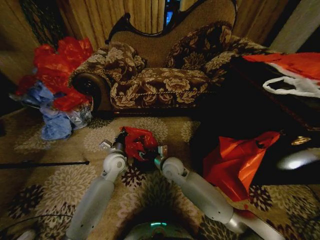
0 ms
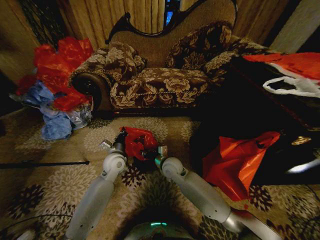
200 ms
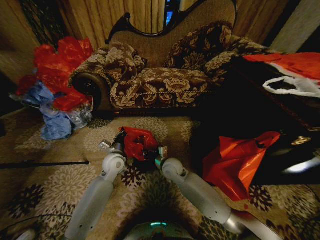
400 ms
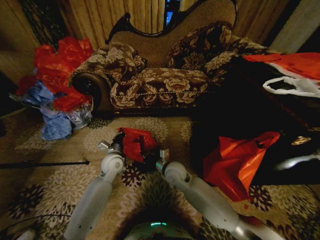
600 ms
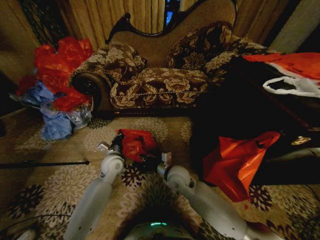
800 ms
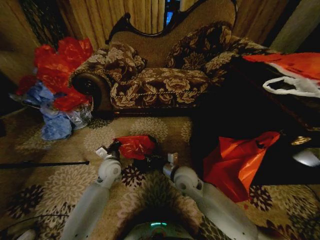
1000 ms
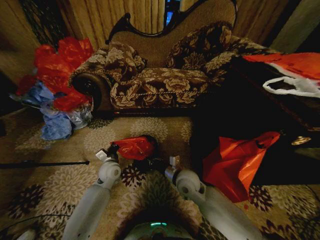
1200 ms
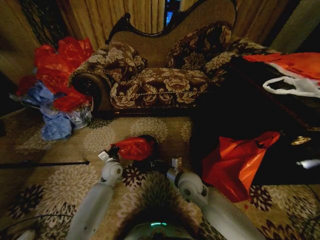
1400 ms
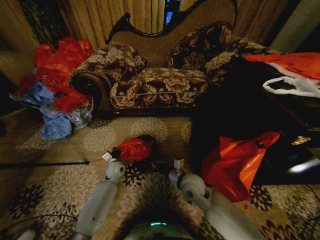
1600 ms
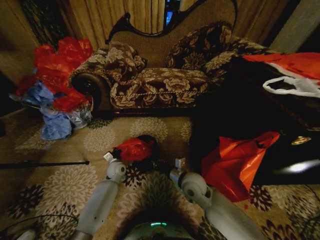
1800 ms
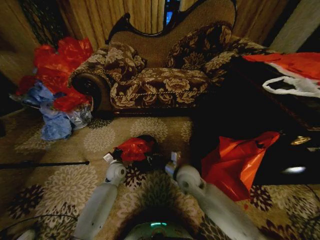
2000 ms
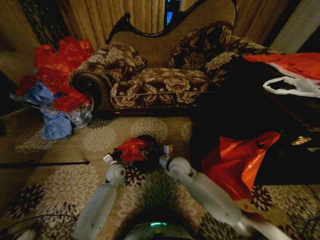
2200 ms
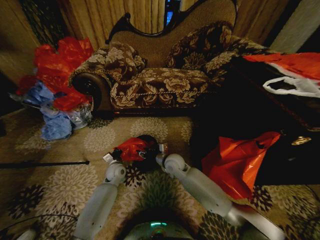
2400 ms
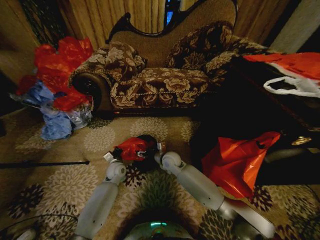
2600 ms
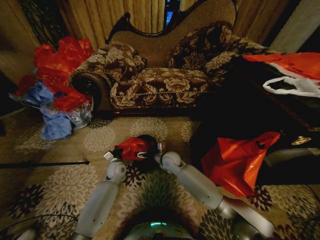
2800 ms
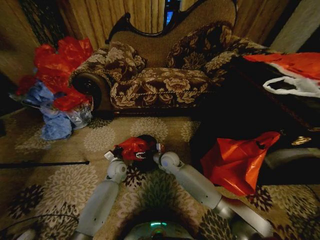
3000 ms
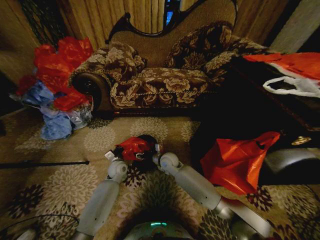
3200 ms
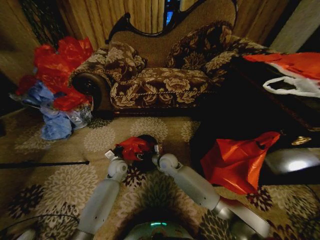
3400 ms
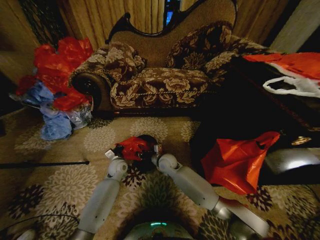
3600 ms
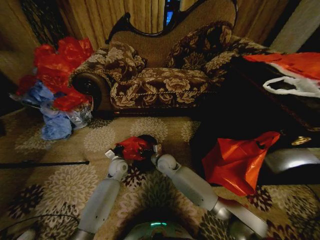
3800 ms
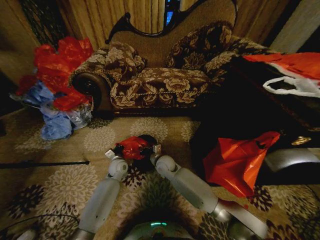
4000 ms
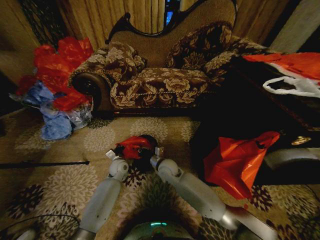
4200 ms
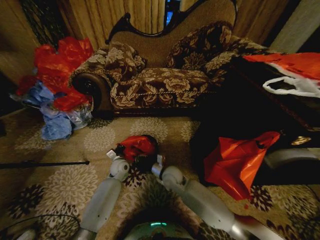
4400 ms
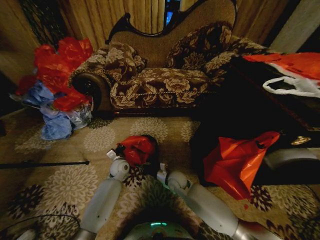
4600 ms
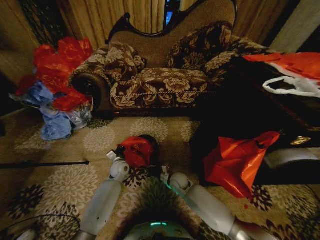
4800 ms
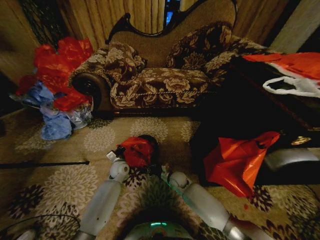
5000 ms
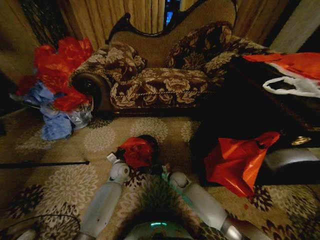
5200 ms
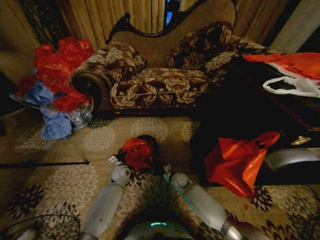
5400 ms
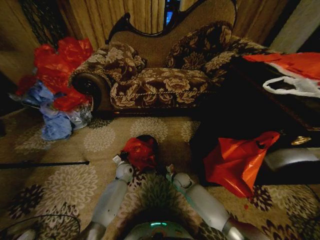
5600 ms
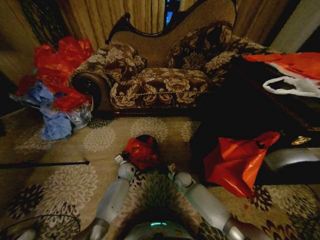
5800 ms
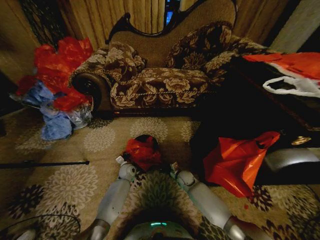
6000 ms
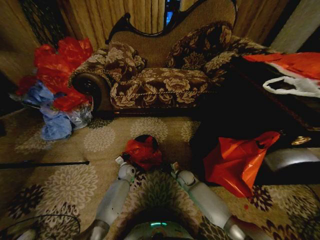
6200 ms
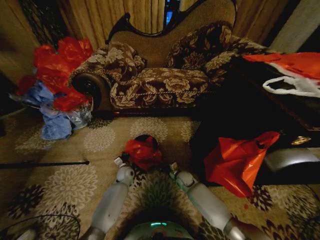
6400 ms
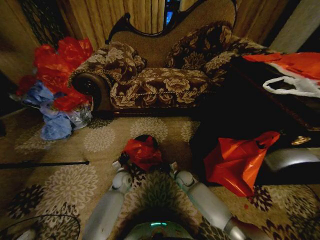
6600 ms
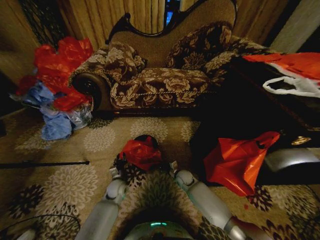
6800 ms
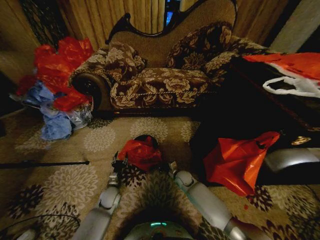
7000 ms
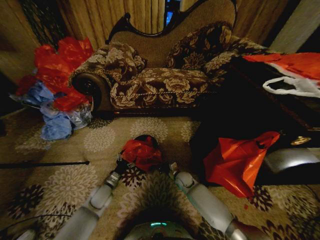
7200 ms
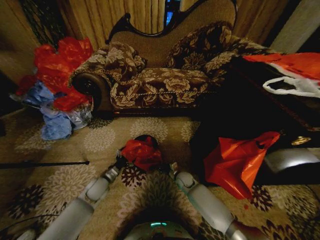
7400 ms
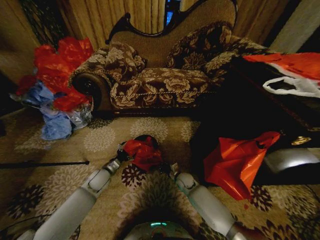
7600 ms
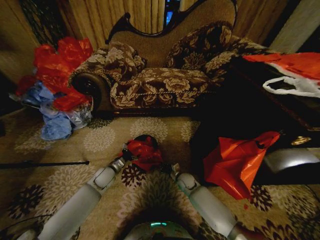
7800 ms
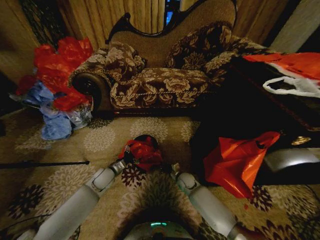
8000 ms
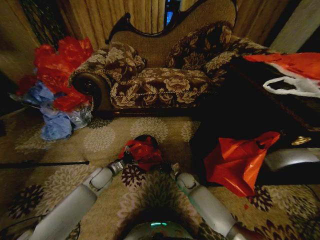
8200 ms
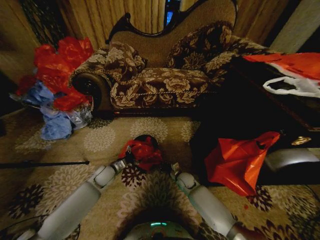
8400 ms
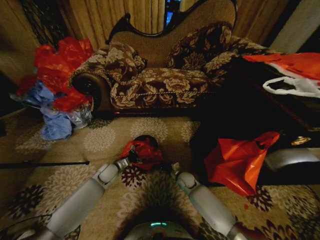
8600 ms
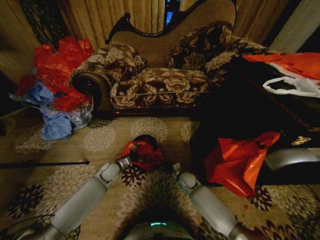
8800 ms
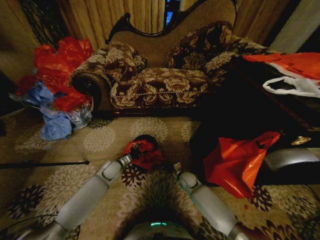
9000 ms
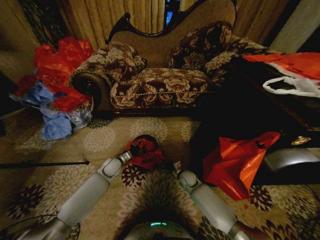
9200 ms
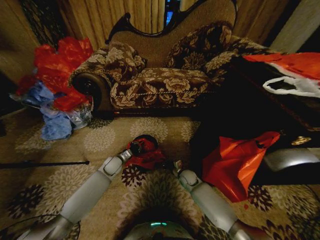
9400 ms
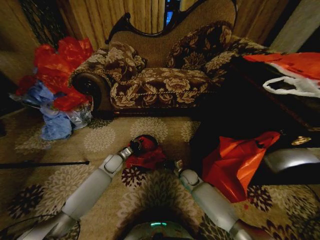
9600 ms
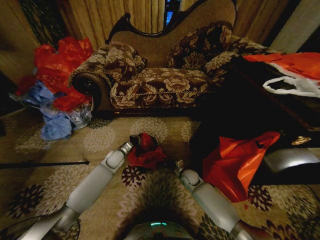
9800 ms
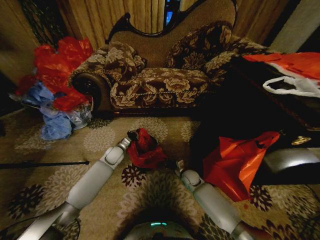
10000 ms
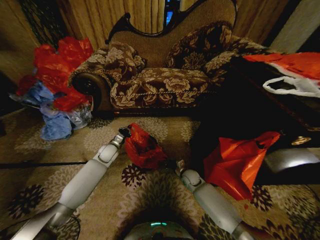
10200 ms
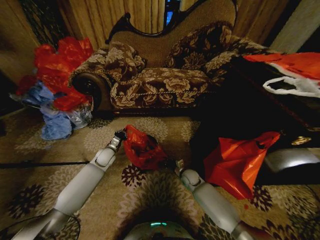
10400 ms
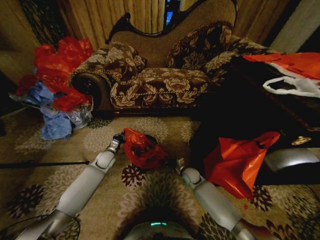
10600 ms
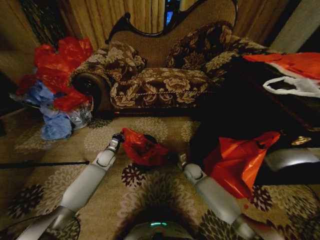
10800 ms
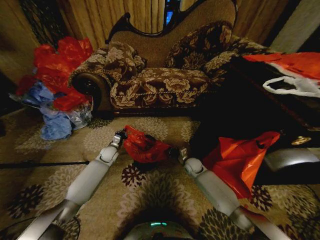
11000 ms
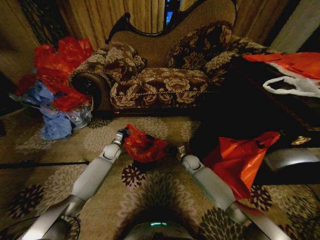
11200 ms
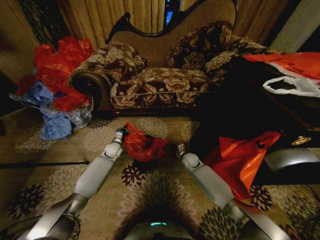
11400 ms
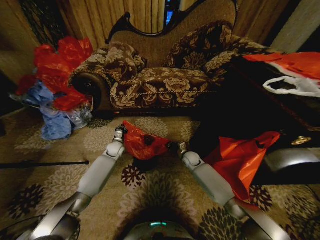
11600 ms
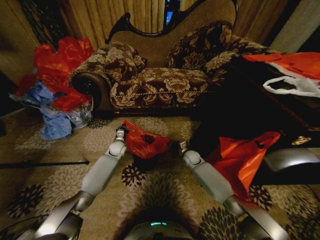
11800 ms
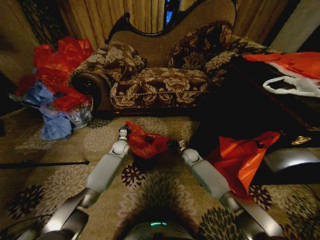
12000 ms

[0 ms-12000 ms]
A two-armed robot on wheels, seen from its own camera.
Task of the whole recording: Place a garbage bag over the trash bin.
0 ms to 1600 ms: The right gripper is displaced backward and to the right by roughly 10 cm, and closes. The left gripper is displaced downward by some 10 cm.
1600 ms to 3000 ms: The right gripper shifts some 15 cm forward and to the left, and opens up.
3000 ms to 4400 ms: The right gripper shifts about 10 cm backward, and closes up.
4400 ms to 6000 ms: The left gripper is displaced downward by approximately 10 cm. The right gripper moves downward and to the right, roughly 20 cm.
6000 ms to 7600 ms: The left gripper goes roughly 15 cm upward, to the left and backward, and opens its fingers.
7600 ms to 9000 ms: The left gripper goes roughly 5 cm forward, and closes.
9000 ms to 10400 ms: The left gripper shifts by about 5 cm, and closes its fingers.
10400 ms to 12000 ms: The right gripper goes approximately 10 cm forward and upward. The left gripper heads forward and to the right, covering roughly 10 cm.

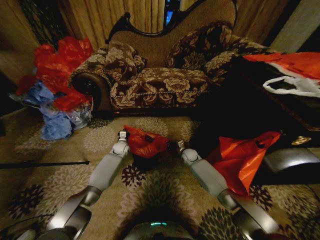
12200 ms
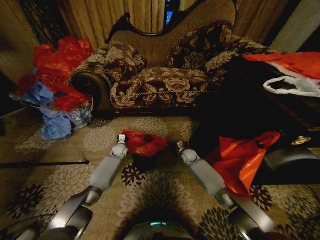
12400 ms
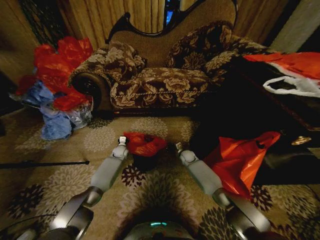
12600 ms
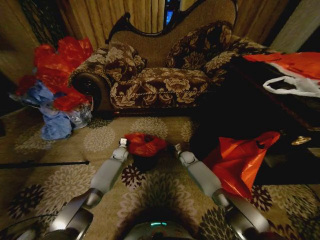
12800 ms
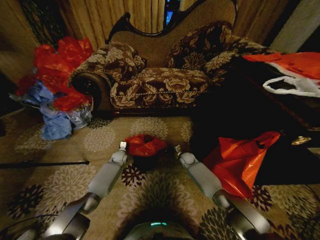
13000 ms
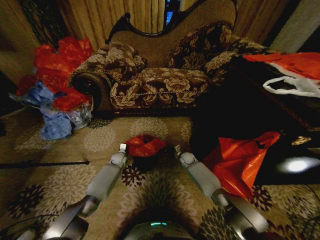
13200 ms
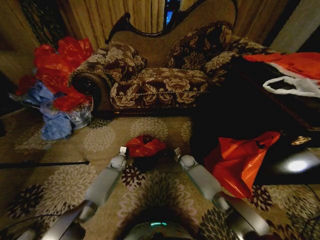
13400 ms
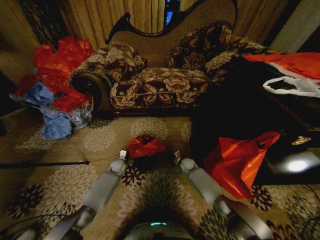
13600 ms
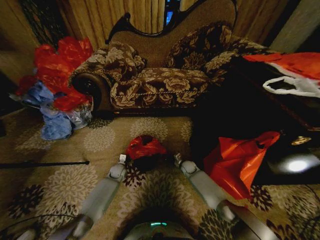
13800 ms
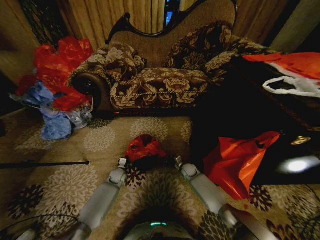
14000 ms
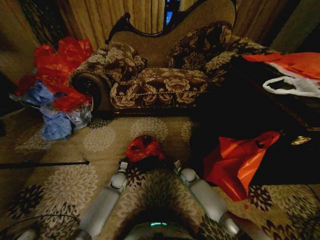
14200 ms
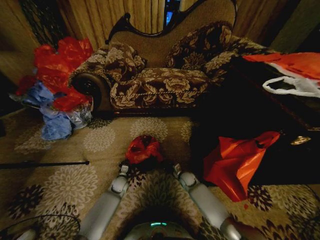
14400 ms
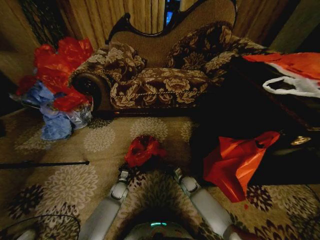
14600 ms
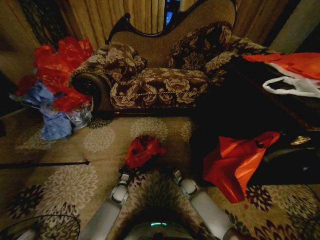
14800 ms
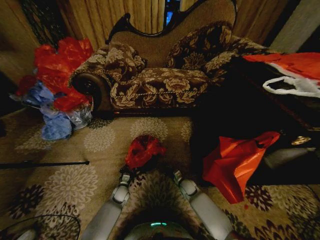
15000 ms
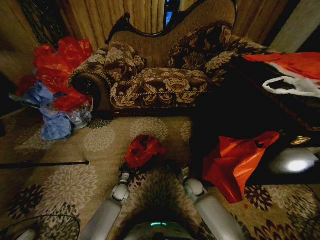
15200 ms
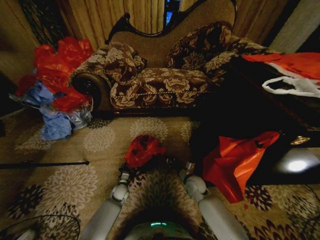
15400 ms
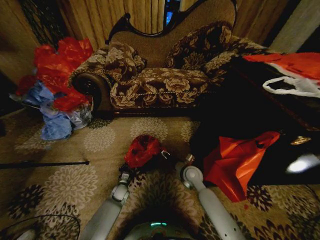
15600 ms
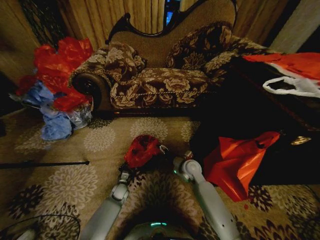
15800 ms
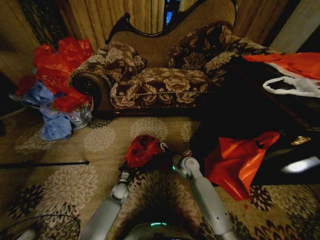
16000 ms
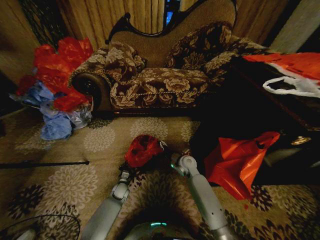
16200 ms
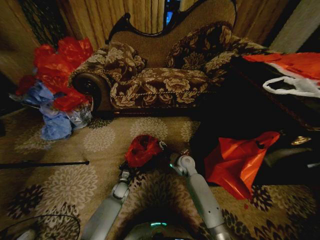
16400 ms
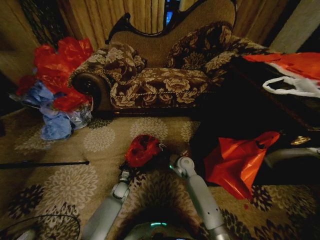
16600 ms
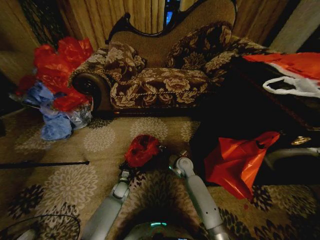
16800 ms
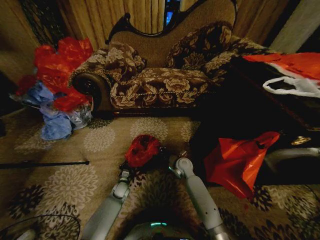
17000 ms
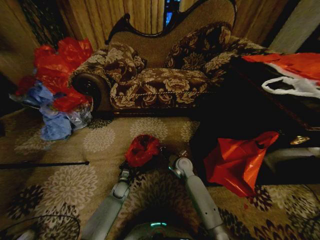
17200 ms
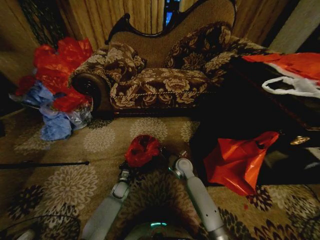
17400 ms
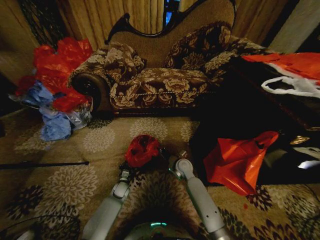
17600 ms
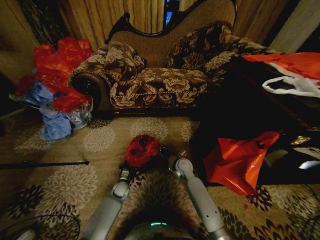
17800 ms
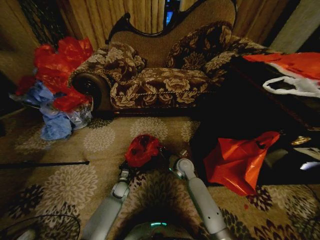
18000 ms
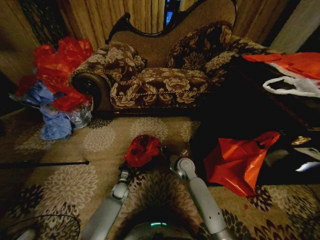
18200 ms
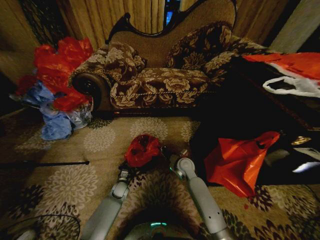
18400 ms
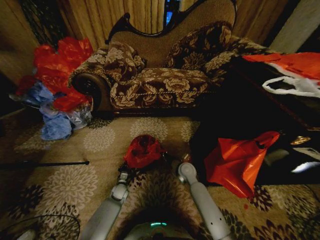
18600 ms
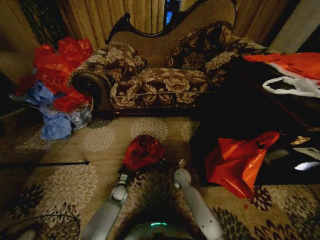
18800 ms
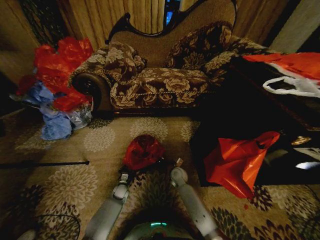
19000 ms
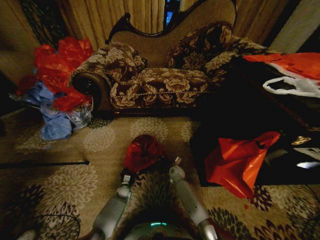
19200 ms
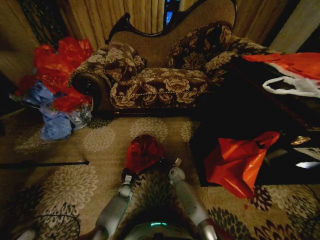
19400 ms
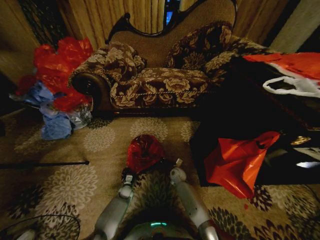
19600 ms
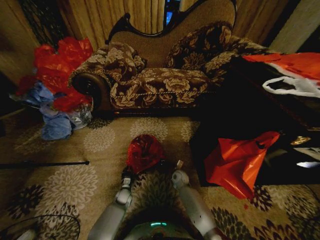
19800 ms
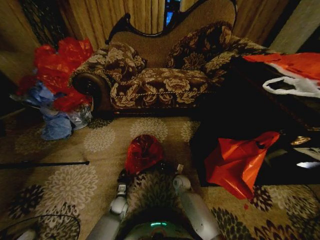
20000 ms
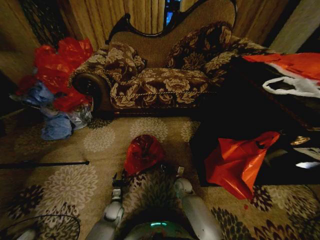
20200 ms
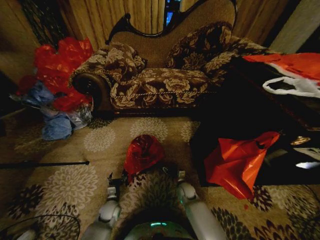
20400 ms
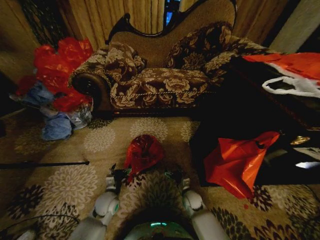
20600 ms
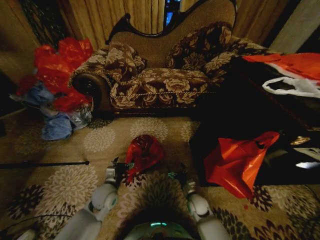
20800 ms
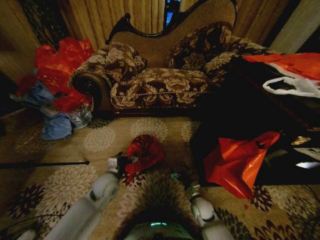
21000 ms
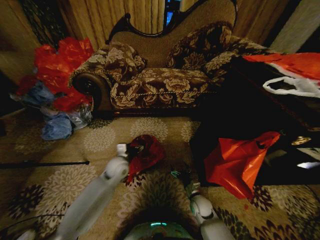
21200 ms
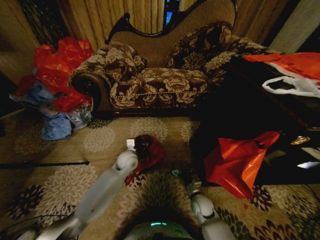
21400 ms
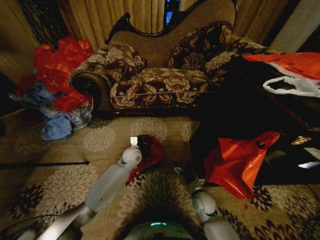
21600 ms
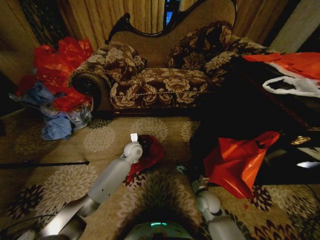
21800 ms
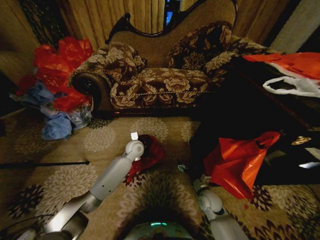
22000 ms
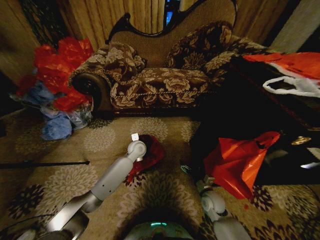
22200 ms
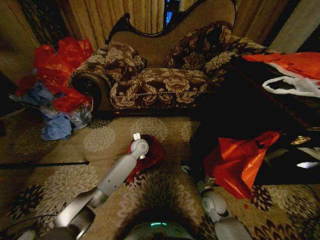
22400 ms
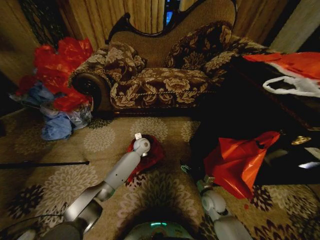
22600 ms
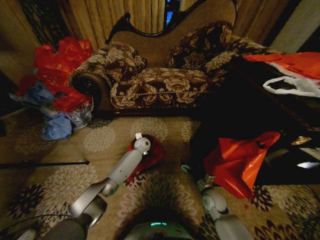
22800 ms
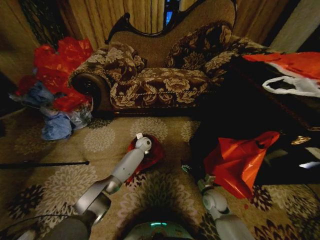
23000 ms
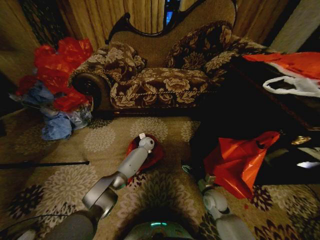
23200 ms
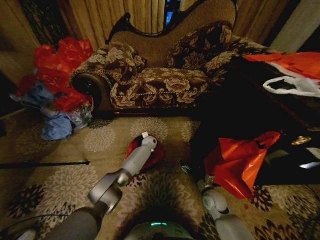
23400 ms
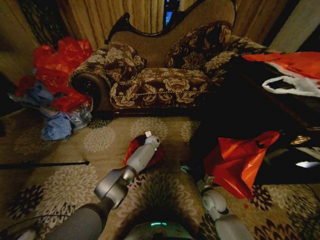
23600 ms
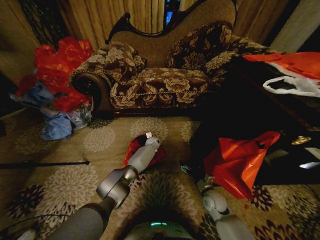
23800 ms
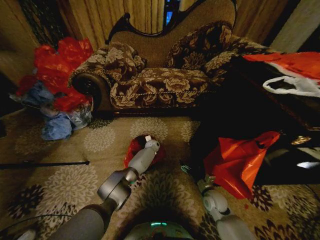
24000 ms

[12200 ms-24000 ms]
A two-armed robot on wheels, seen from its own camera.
Task of the whole recording: Place a garbage bag over the trash bin.
12200 ms to 13600 ms: The left gripper moves downward and backward, about 10 cm, while the right gripper goes about 5 cm downward.
13600 ms to 15200 ms: The left gripper moves backward and downward, about 15 cm. Meanwhile the right gripper goes roughly 15 cm backward.
15200 ms to 16600 ms: The right gripper travels upward, forward and to the left by some 15 cm, and opens.
16600 ms to 18200 ms: The right gripper closes.
18200 ms to 19600 ms: The left gripper goes about 5 cm downward. Meanwhile the right gripper heads downward, covering roughly 15 cm.
19600 ms to 21000 ms: The left gripper shifts roughly 30 cm upward, and opens up, while the right gripper goes approximately 20 cm backward and to the right, and opens its fingers.
21000 ms to 22600 ms: The right gripper changes place by about 5 cm, while the left gripper moves forward and to the right, approximately 25 cm, and closes.
22600 ms to 24000 ms: The left gripper heads downward, forward and to the right, covering some 15 cm.
